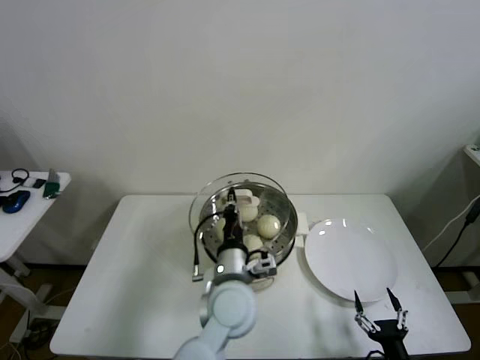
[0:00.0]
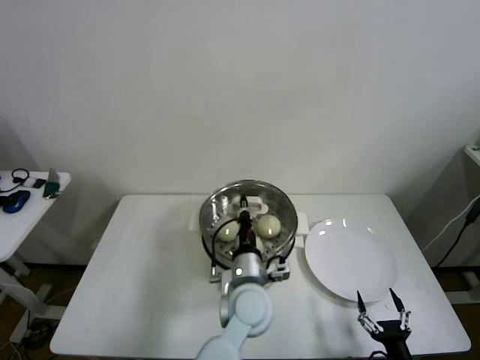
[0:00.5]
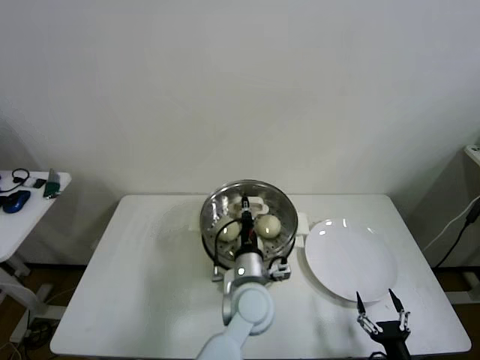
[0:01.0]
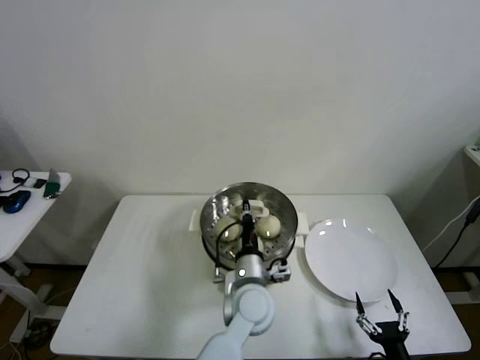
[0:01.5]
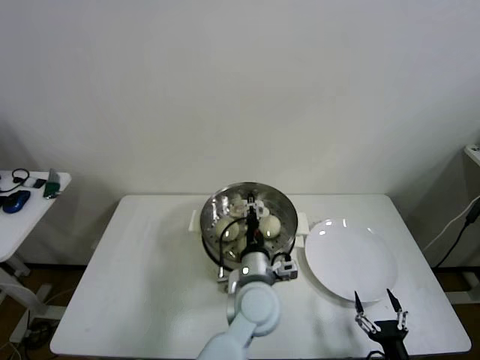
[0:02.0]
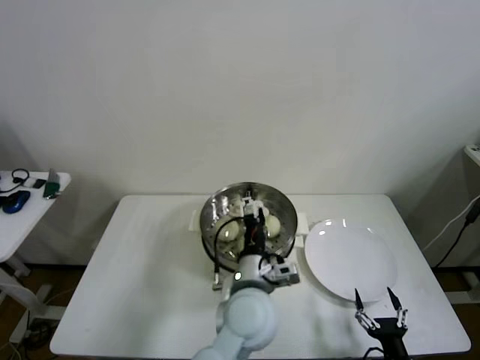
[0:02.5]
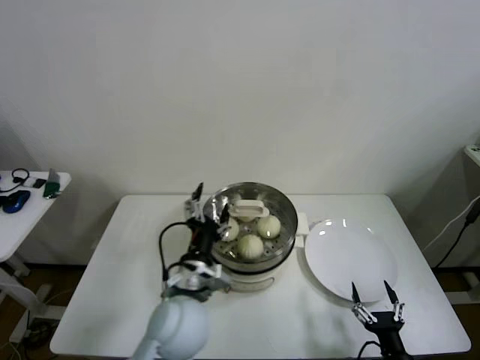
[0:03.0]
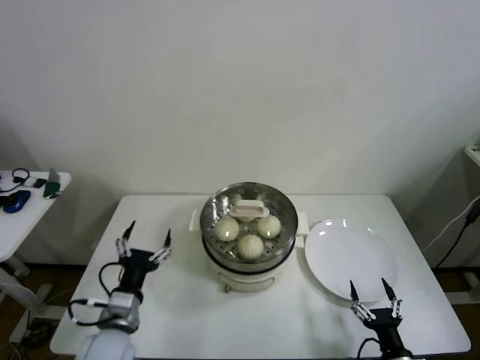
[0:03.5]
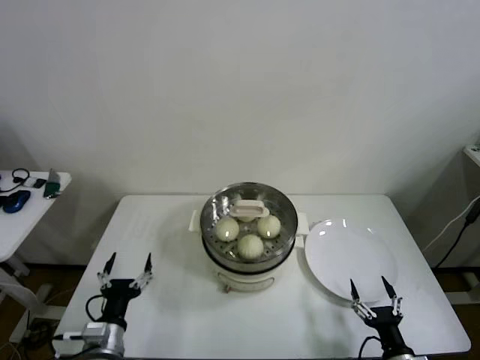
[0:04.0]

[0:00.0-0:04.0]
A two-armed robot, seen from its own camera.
0:00.0 to 0:02.0: The left gripper travels to the right by approximately 5 cm, and opens.
0:02.0 to 0:04.0: The left gripper shifts about 30 cm to the left, and opens.
